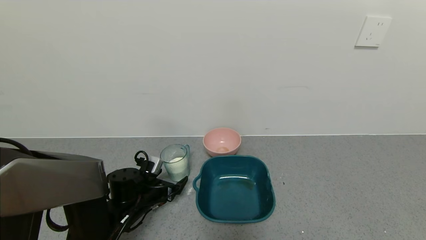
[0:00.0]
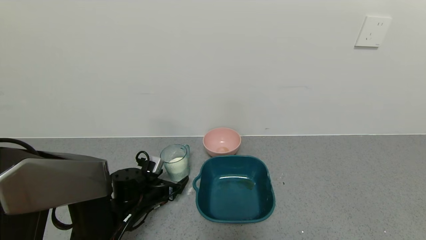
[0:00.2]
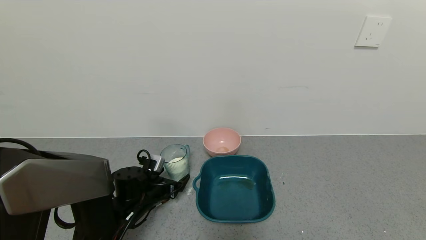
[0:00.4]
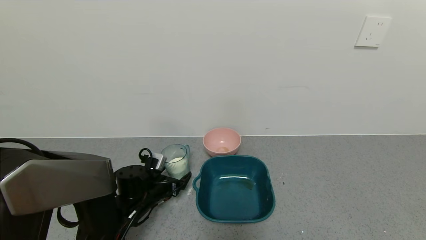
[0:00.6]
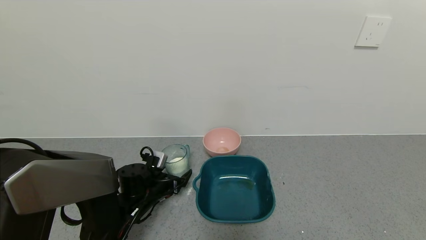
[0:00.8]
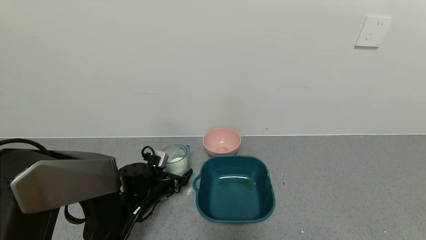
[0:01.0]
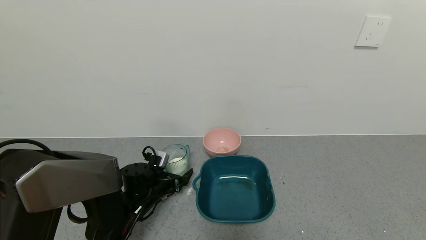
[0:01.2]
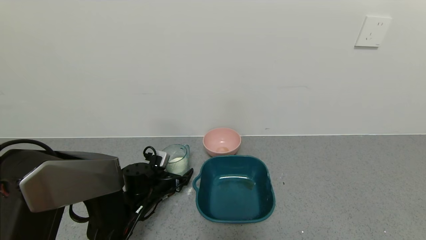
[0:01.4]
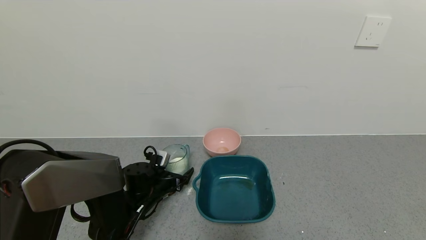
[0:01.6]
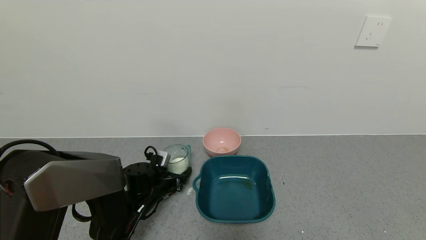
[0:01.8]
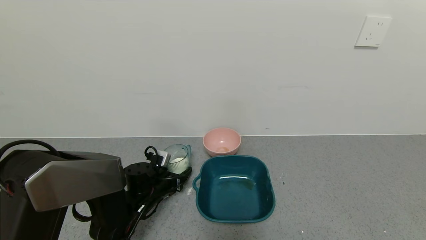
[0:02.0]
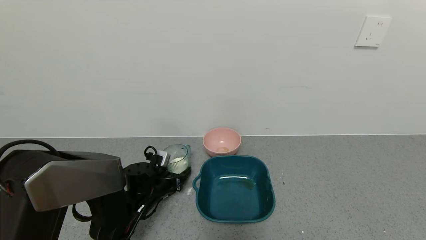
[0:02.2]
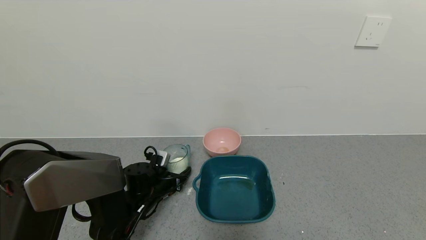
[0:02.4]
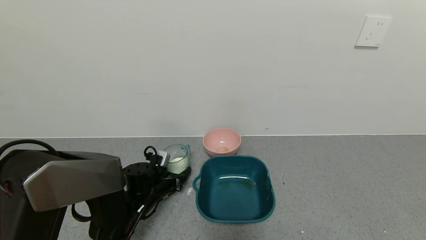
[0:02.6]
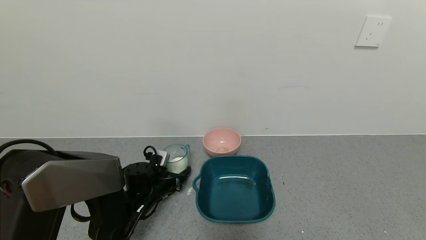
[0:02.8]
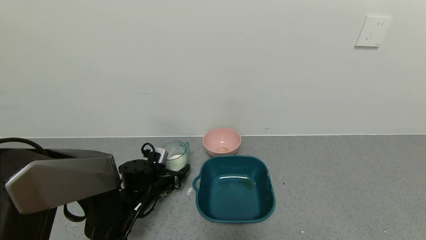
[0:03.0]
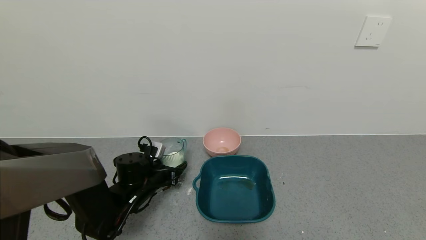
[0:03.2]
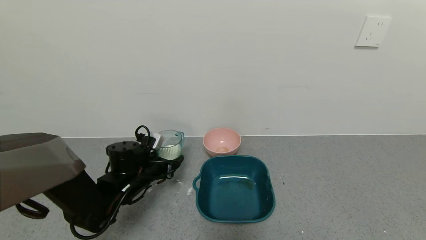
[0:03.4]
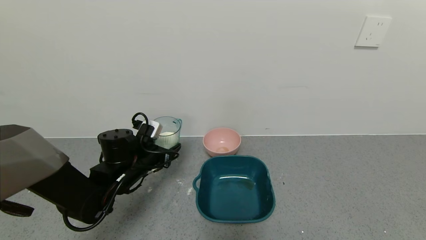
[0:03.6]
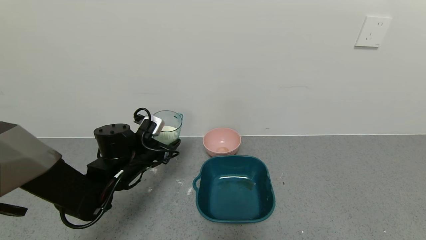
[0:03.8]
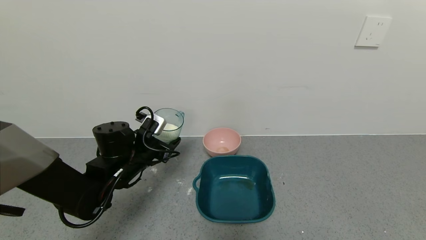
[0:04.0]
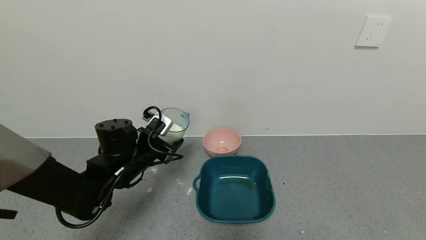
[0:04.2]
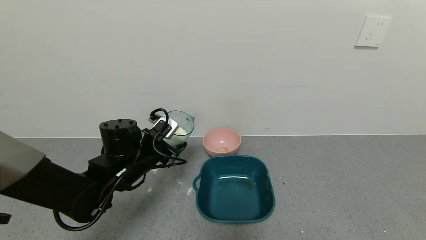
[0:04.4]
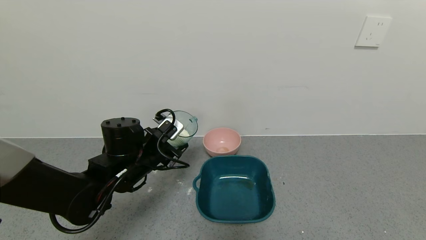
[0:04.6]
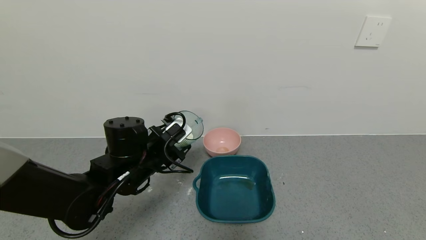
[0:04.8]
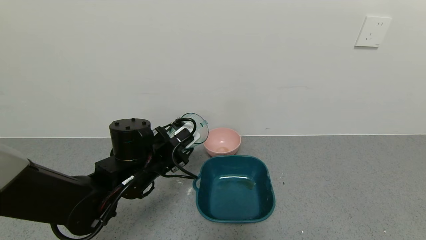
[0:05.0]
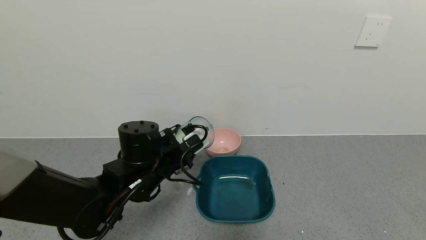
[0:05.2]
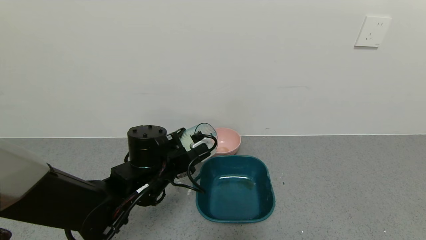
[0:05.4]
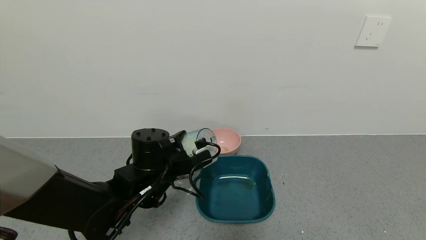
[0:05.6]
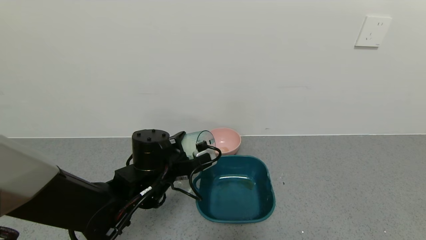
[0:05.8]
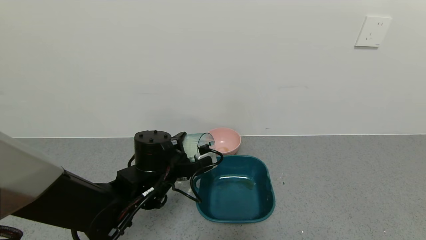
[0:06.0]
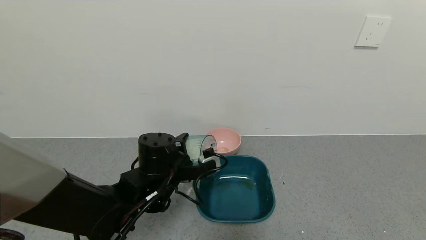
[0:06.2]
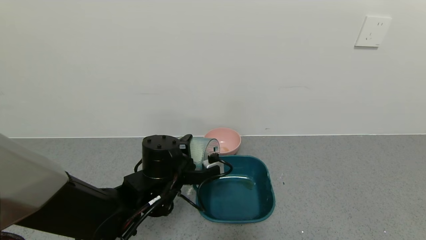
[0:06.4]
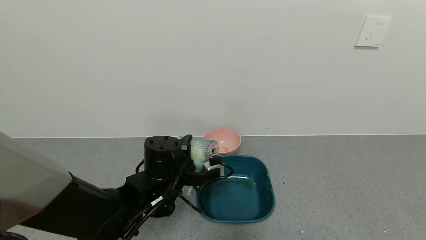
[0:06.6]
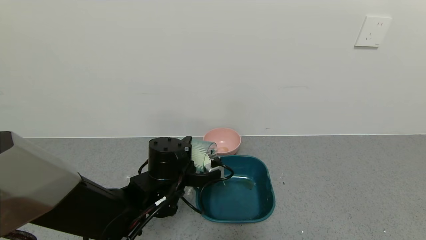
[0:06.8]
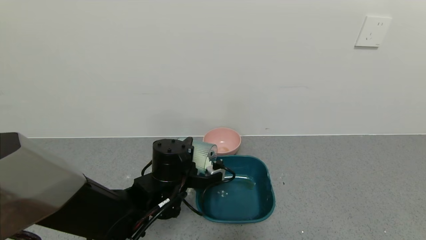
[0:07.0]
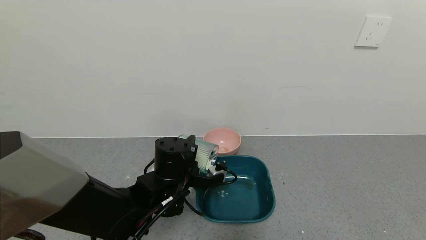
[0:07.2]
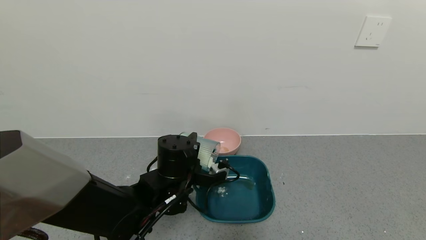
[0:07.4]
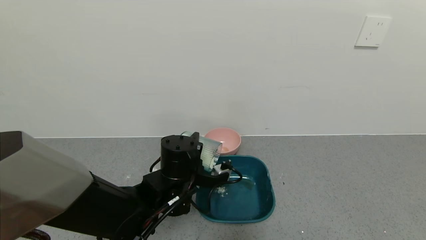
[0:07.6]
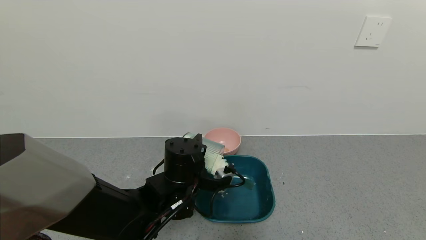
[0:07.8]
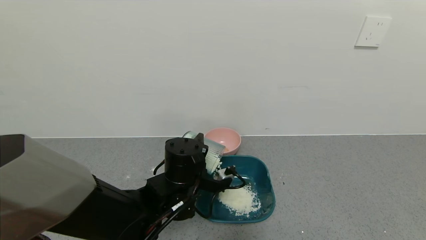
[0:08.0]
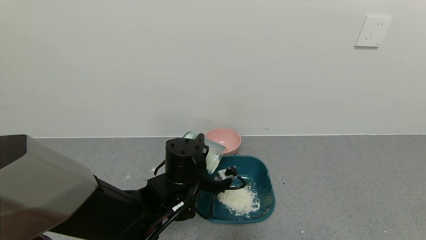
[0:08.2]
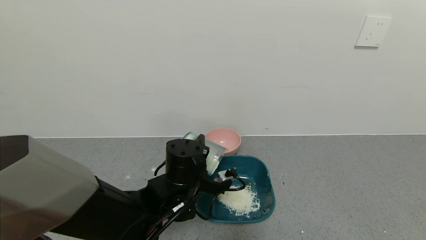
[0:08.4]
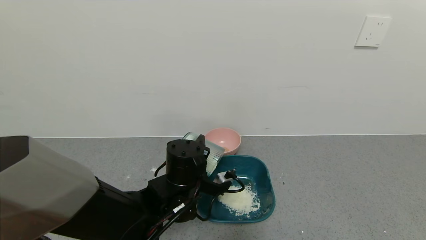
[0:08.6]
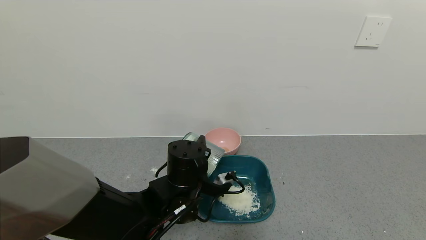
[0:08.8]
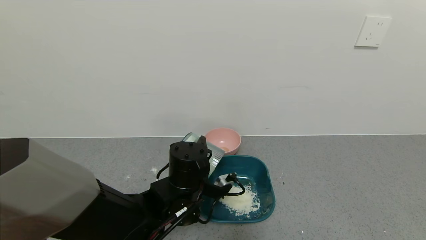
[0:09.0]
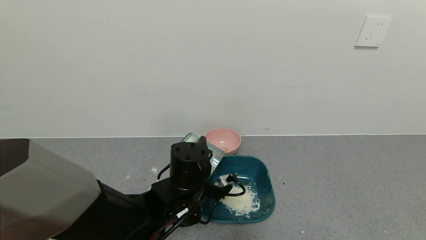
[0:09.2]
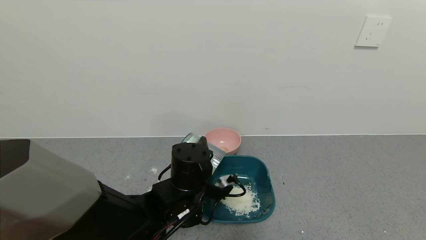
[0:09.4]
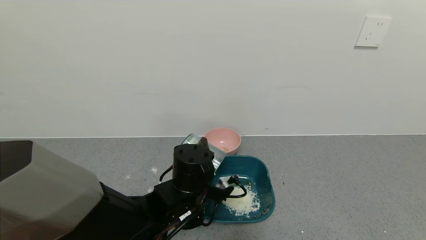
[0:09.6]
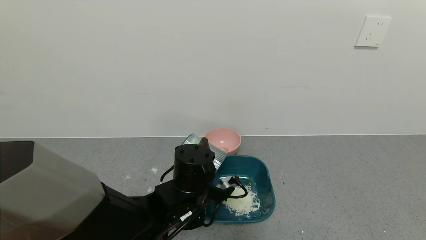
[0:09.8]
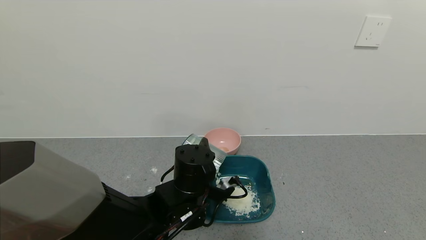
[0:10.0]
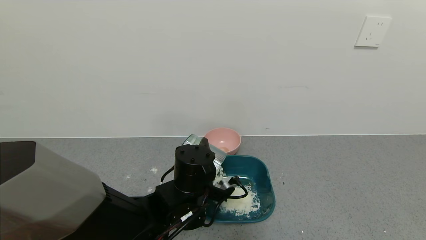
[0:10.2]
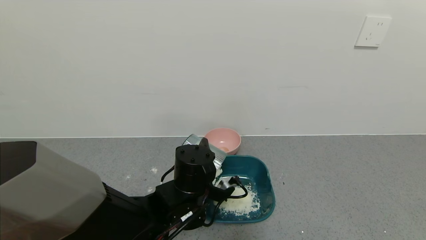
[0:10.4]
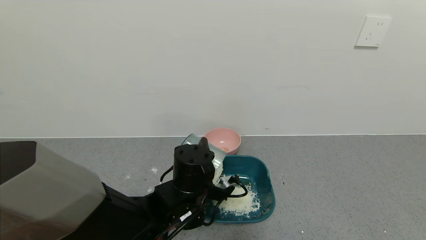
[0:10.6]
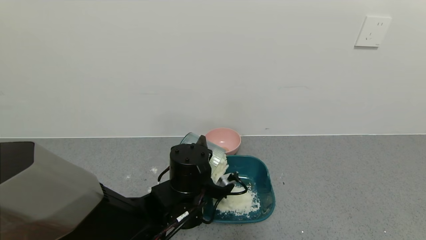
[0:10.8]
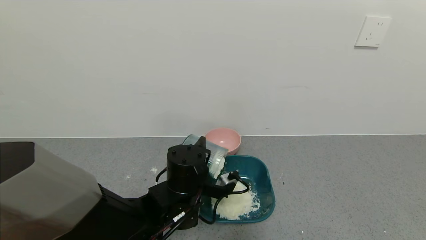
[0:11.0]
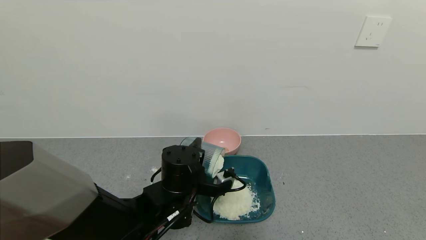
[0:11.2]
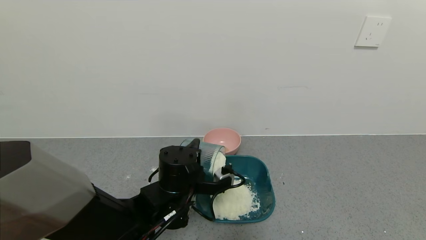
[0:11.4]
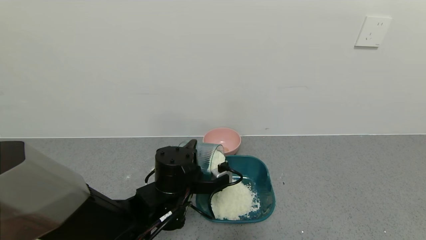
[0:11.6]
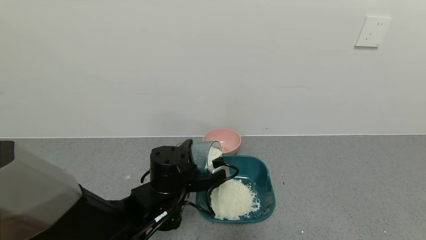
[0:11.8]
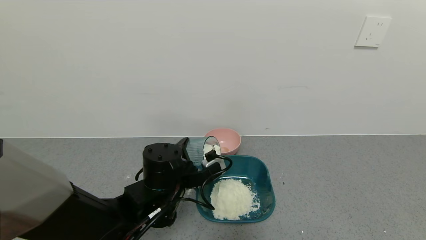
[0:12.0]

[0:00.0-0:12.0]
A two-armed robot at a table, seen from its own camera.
Task of the whole recording: use a gripper to pick up the cup and pour the powder into a bowl or tray.
Step, 0:00.0 to 0:02.0: Grasp the glass of powder with the left gripper.
Step, 0:02.2 to 0:11.0: Pour the powder into the pink bowl with the left gripper.
0:00.0 to 0:01.6: The grippers make only small movements.
0:01.6 to 0:03.0: The left gripper closes.
0:03.0 to 0:04.4: The left gripper heads upward, covering about 10 cm.
0:04.4 to 0:06.0: The left gripper shifts roughly 5 cm to the right.
0:07.6 to 0:09.0: The grippers make only small movements.
0:09.0 to 0:10.4: Neither gripper changes place.

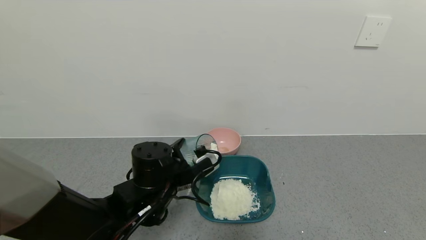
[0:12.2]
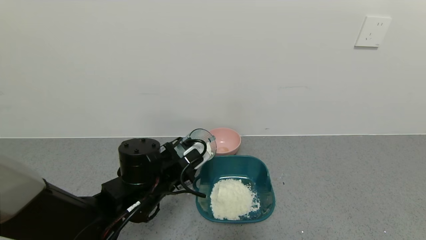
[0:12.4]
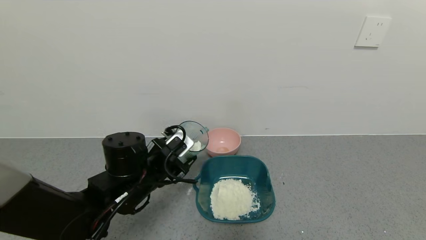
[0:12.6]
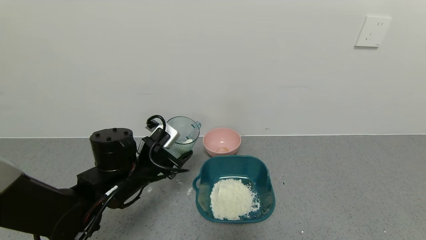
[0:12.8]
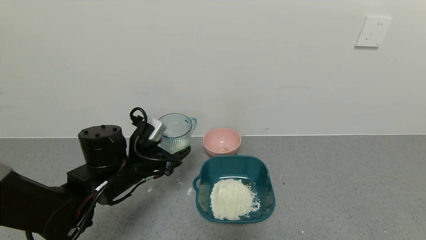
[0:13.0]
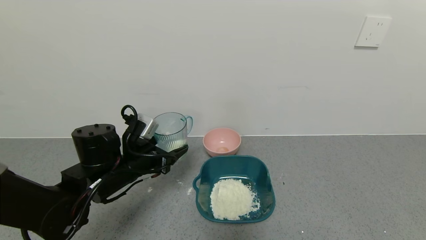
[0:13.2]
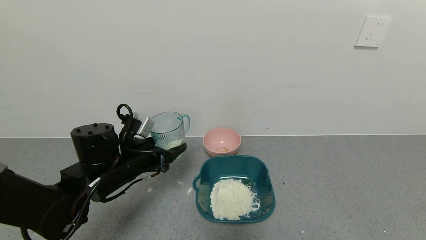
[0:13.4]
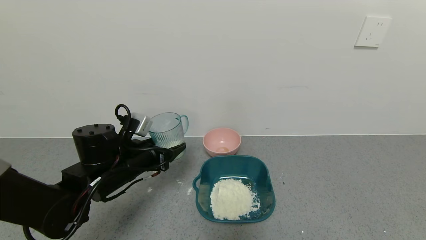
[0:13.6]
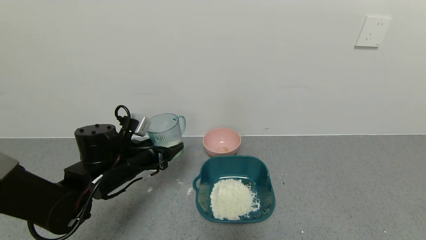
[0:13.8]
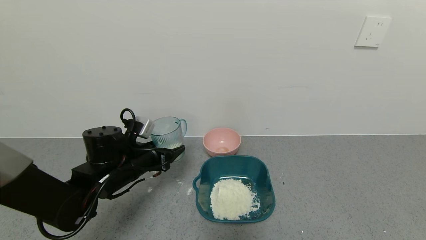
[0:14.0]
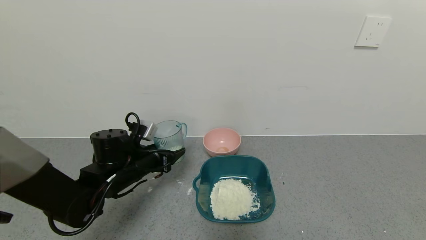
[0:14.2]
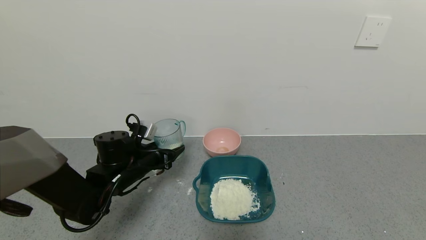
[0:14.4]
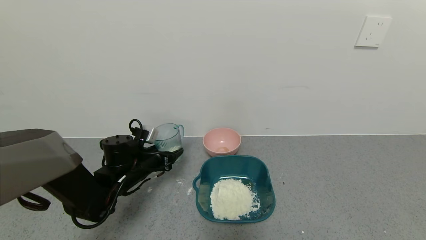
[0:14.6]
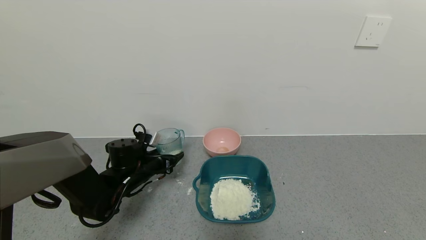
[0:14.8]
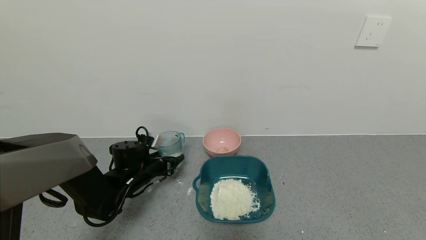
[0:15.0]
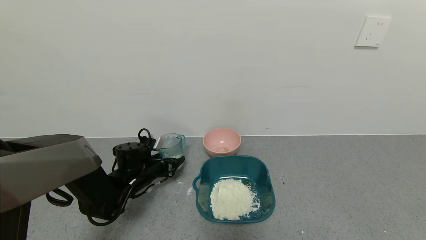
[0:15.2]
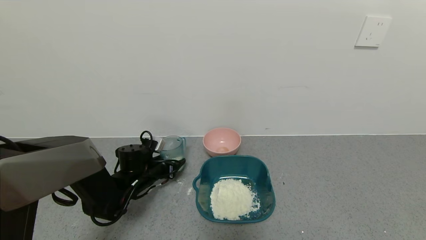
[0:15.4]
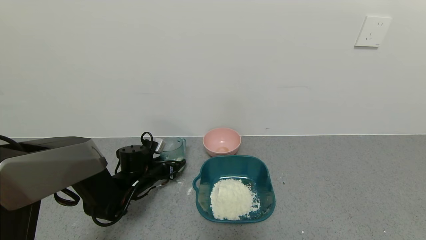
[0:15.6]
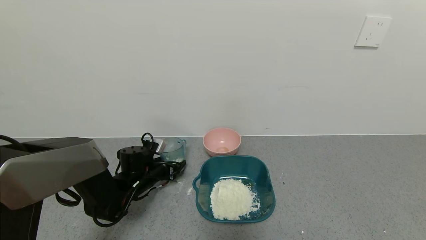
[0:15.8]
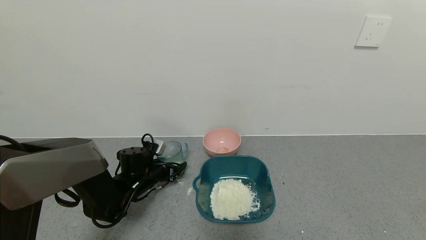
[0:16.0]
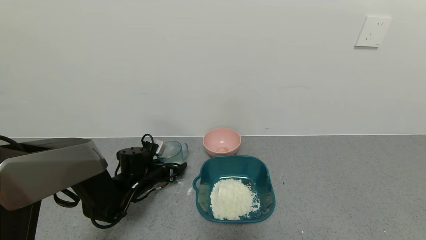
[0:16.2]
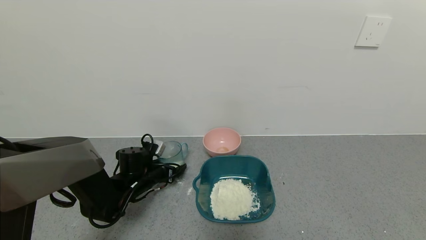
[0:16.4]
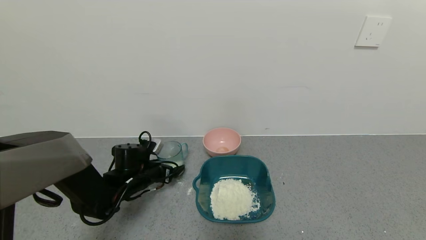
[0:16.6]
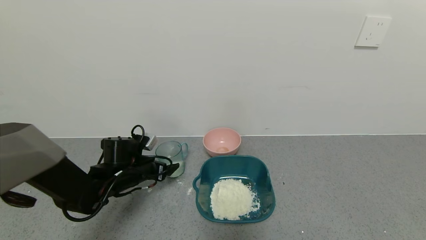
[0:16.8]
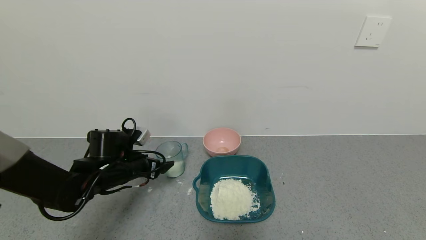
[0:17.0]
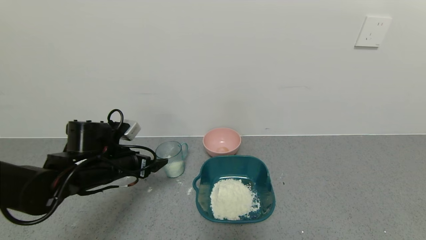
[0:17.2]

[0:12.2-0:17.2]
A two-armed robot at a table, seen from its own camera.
Task of the whole recording: use a gripper to pick up the cup and pour the powder into a bowl or tray.
Step, 0:12.2 to 0:16.6: Place the glass cup down with the left gripper.
0:12.2 to 0:13.8: The left gripper moves to the left, some 10 cm.
0:13.8 to 0:15.6: The left gripper shifts some 10 cm downward and forward.
0:15.6 to 0:17.2: The left gripper heads upward and backward, covering some 15 cm, and opens its fingers.
